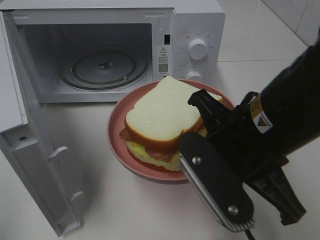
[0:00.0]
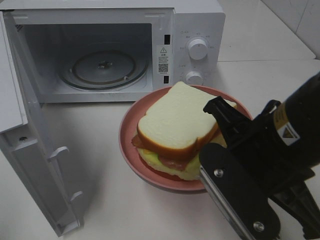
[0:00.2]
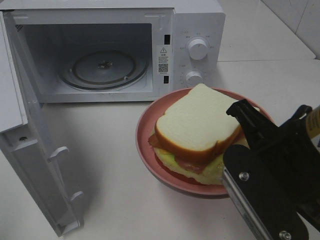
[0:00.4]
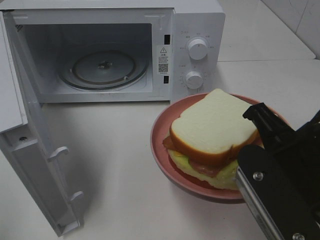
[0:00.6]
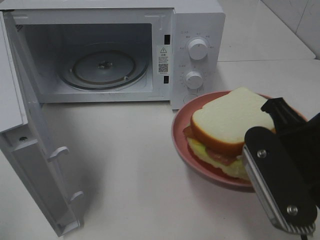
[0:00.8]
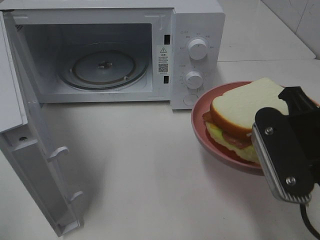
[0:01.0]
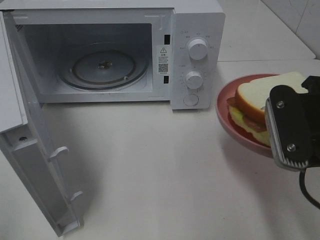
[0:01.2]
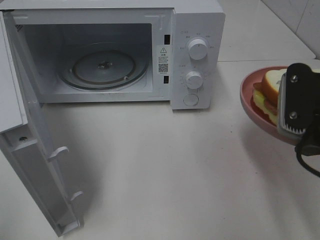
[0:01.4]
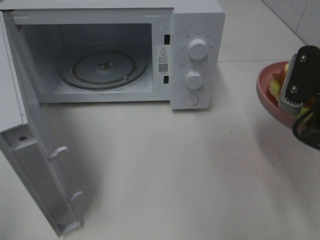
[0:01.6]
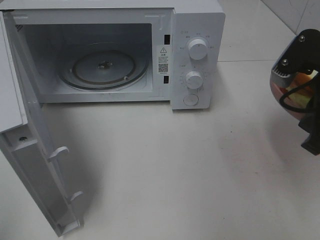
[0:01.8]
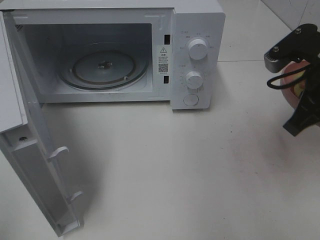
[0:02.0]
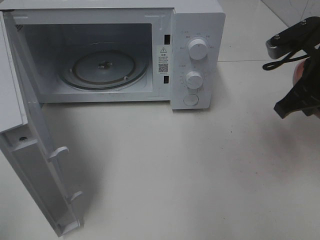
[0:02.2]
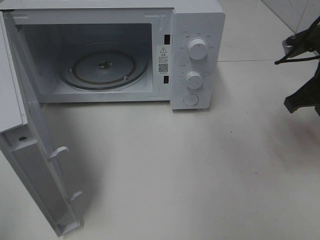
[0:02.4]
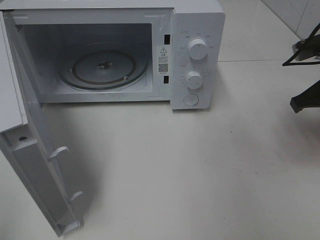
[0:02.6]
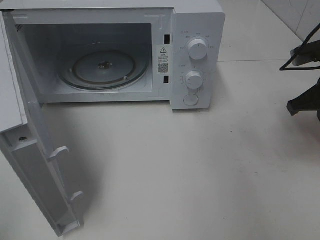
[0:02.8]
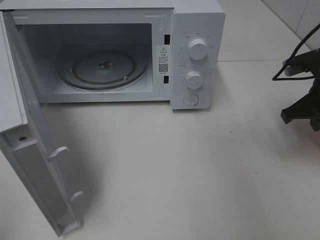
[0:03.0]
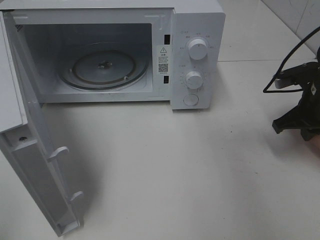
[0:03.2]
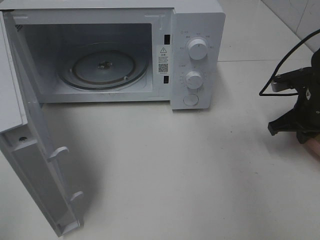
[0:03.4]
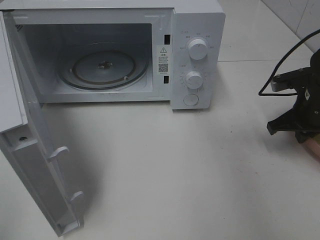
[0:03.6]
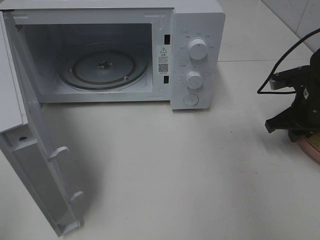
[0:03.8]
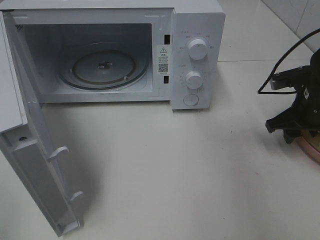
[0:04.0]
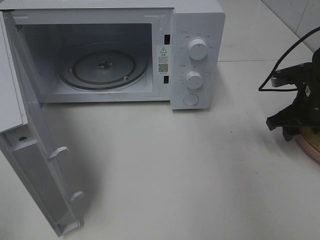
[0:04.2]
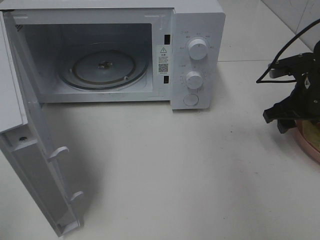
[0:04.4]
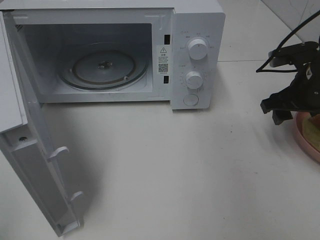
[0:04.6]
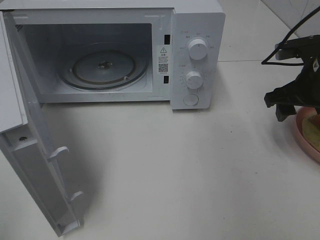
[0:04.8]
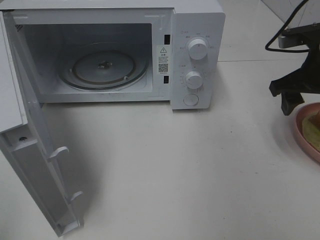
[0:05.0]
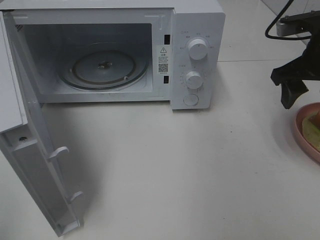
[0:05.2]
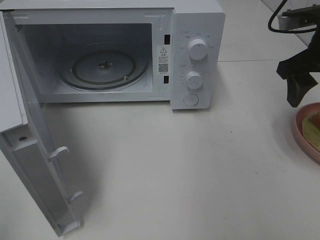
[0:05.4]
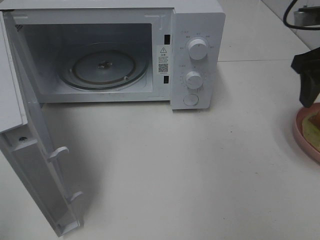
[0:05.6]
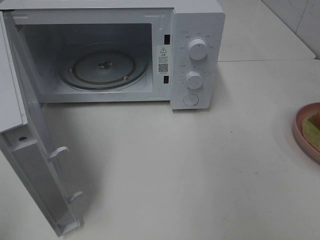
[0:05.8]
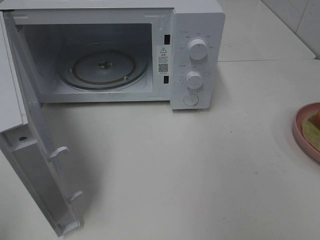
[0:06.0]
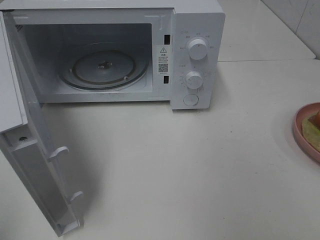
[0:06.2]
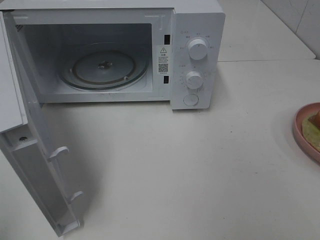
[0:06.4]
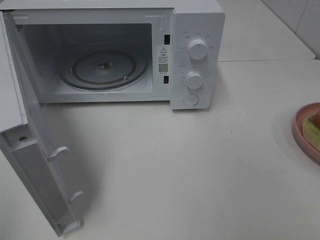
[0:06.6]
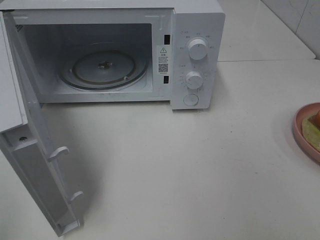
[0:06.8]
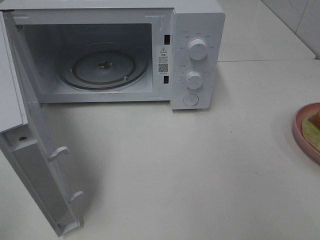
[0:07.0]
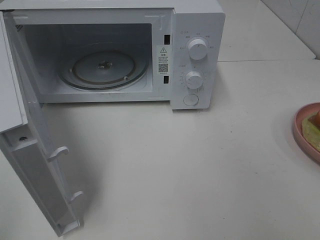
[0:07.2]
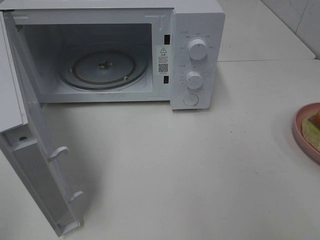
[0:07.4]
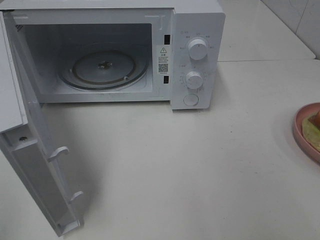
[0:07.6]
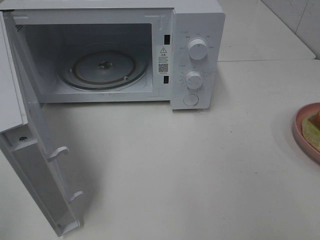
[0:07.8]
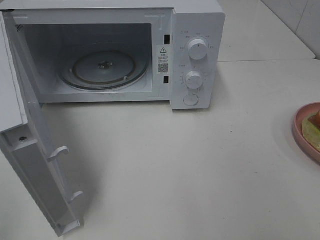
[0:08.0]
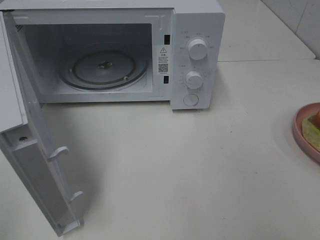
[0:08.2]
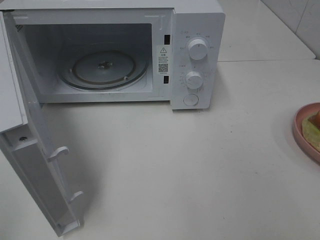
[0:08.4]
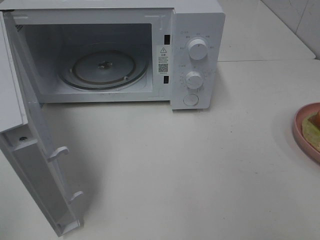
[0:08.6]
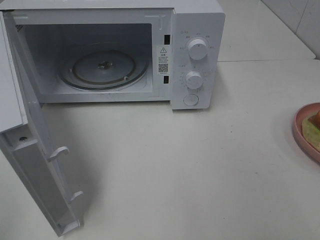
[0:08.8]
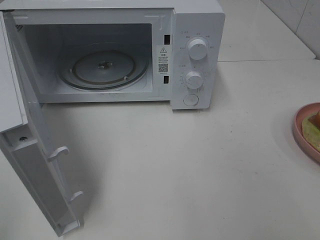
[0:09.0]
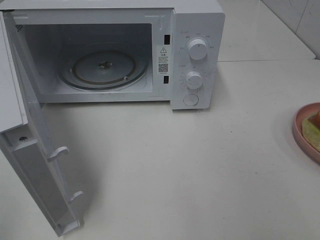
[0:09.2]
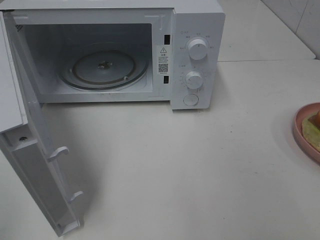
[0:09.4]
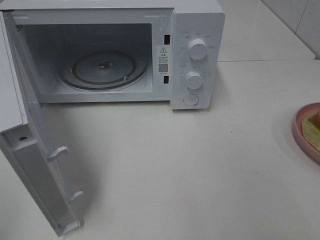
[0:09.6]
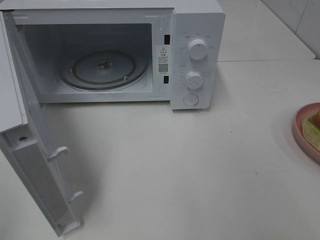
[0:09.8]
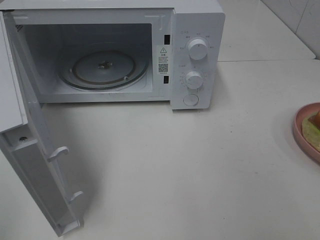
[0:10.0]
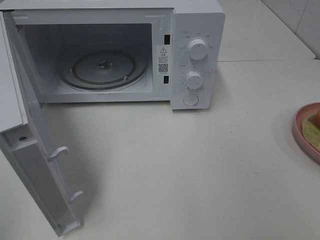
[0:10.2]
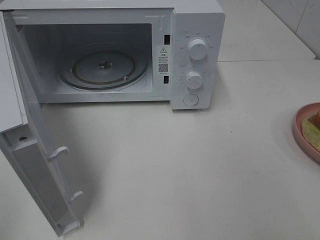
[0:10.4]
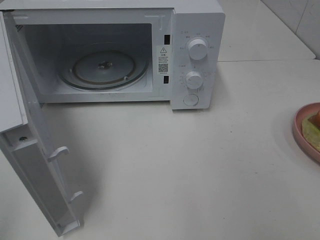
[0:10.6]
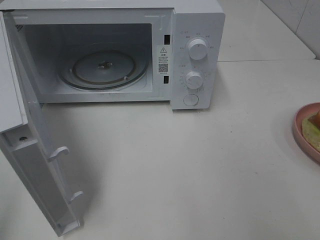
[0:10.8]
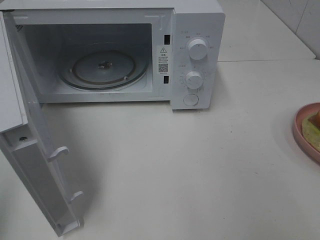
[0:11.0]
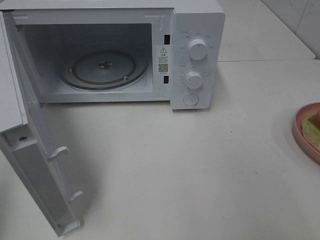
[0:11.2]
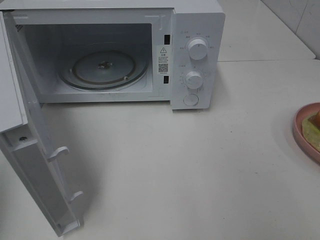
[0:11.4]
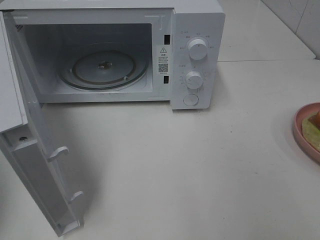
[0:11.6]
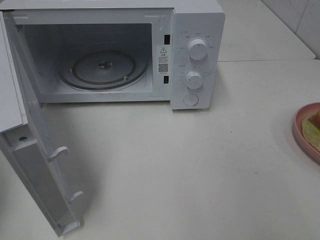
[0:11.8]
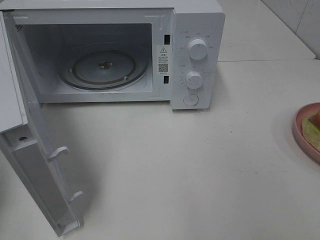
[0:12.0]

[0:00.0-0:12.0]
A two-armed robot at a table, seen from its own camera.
Task of the whole recording: Heat Sandwich.
Step, 0:00.0 to 0:04.4: Right hand: place the plate on the table.
0:00.0 to 0:01.6: The right gripper goes approximately 10 cm to the right.
0:01.6 to 0:03.0: The right gripper goes approximately 15 cm forward, downward and to the right.
0:03.0 to 0:04.4: The right gripper opens its fingers.
0:04.4 to 0:06.0: The right gripper goes roughly 20 cm upward and backward.
0:09.0 to 0:10.4: The two grippers keep their place.

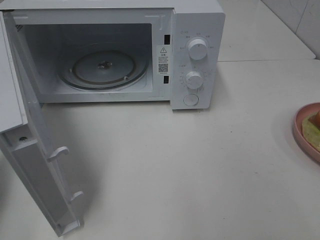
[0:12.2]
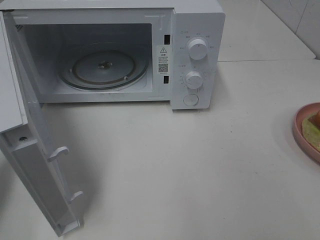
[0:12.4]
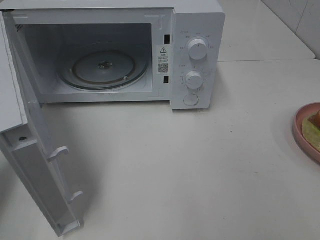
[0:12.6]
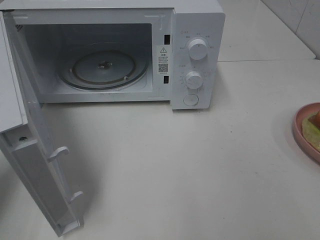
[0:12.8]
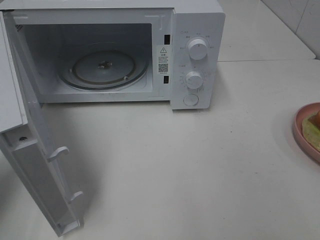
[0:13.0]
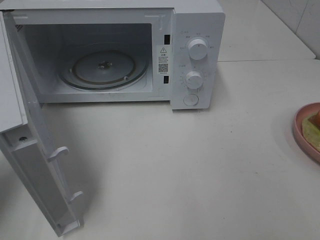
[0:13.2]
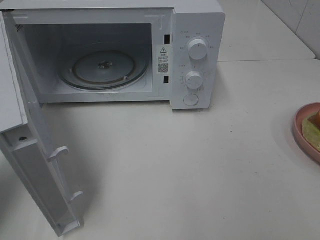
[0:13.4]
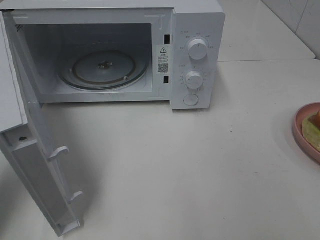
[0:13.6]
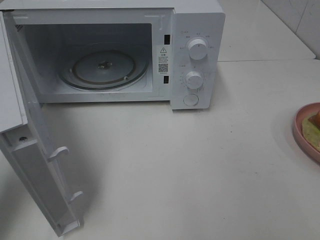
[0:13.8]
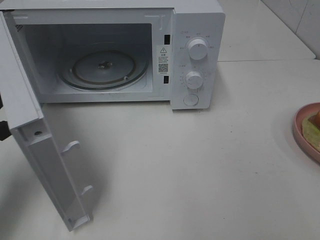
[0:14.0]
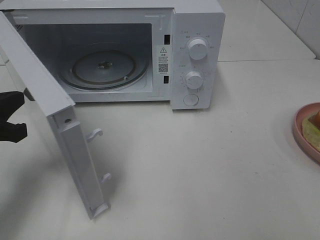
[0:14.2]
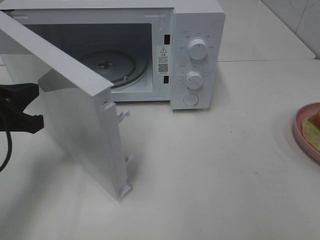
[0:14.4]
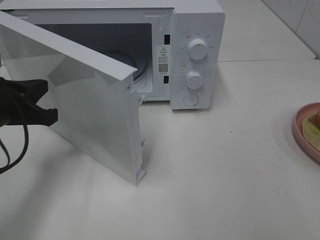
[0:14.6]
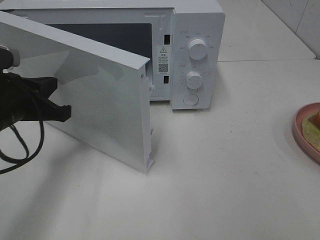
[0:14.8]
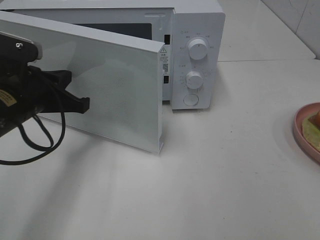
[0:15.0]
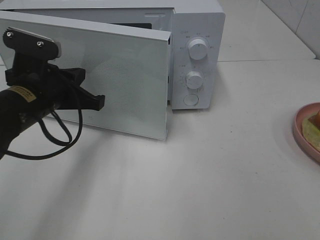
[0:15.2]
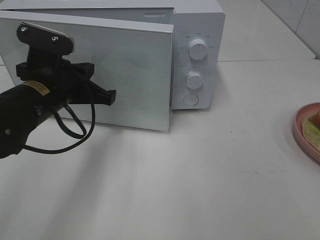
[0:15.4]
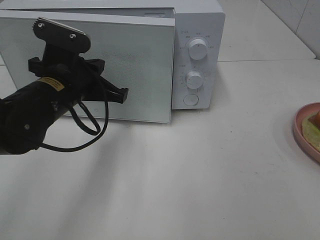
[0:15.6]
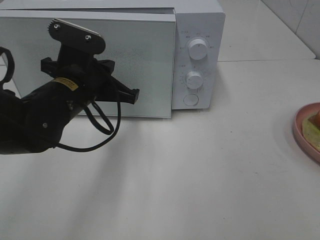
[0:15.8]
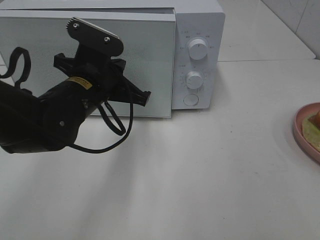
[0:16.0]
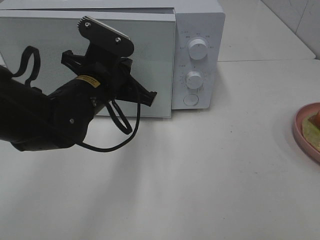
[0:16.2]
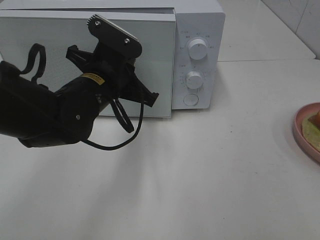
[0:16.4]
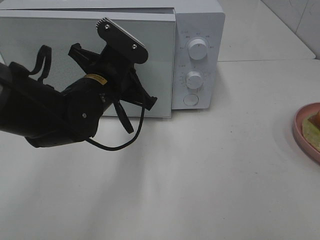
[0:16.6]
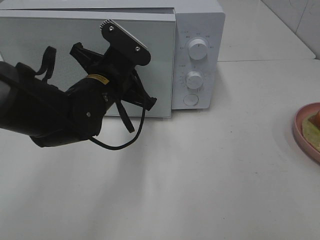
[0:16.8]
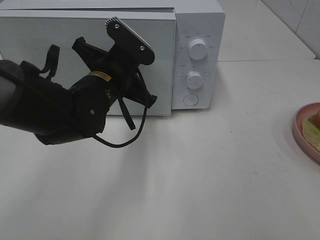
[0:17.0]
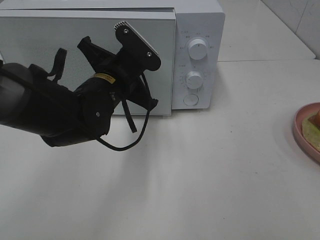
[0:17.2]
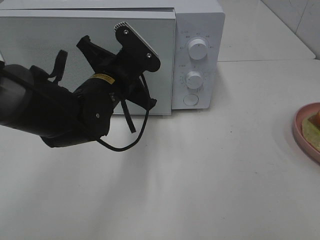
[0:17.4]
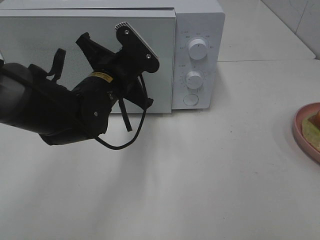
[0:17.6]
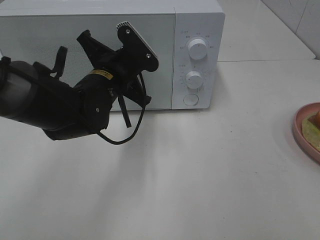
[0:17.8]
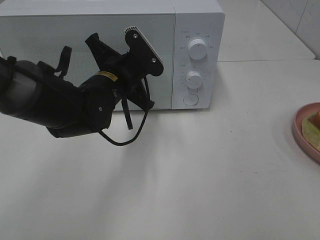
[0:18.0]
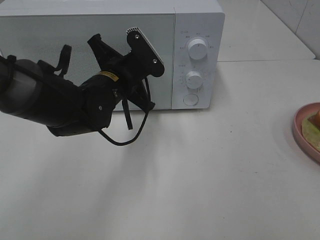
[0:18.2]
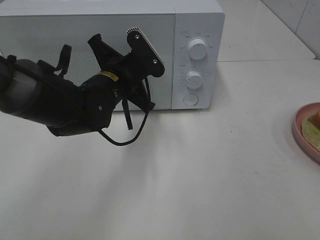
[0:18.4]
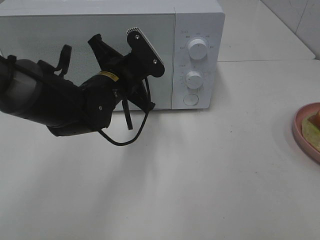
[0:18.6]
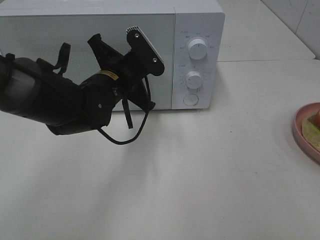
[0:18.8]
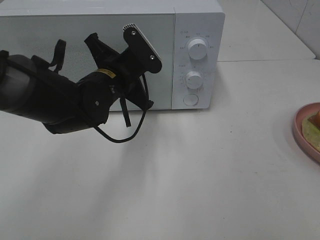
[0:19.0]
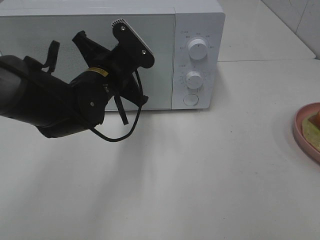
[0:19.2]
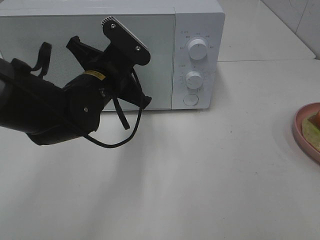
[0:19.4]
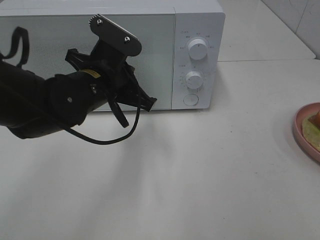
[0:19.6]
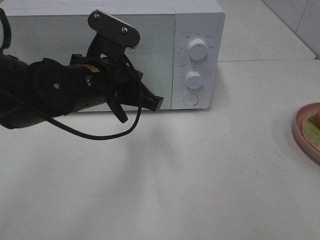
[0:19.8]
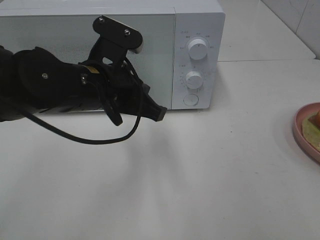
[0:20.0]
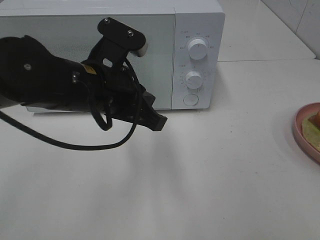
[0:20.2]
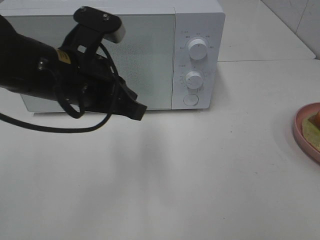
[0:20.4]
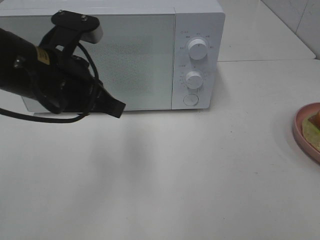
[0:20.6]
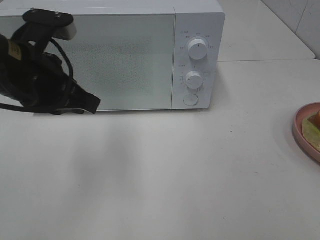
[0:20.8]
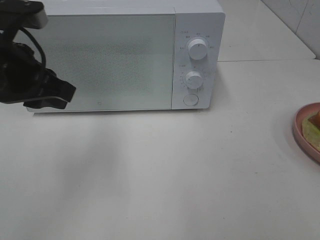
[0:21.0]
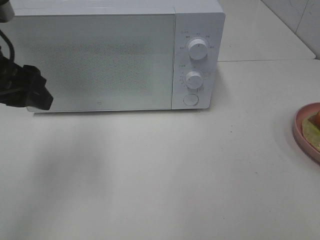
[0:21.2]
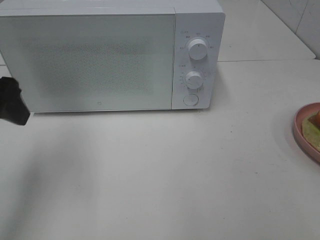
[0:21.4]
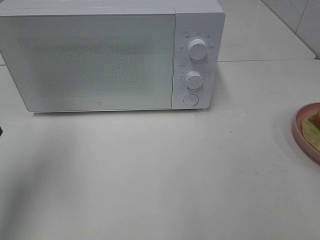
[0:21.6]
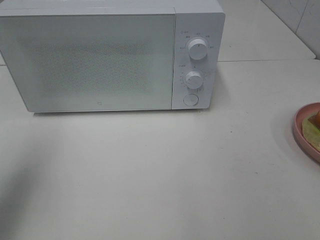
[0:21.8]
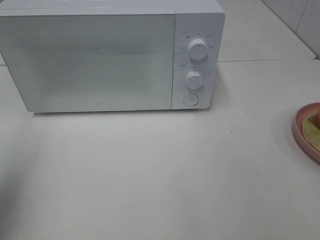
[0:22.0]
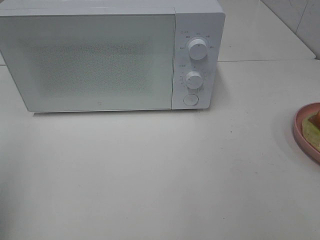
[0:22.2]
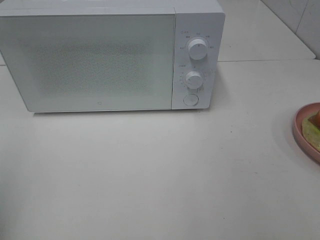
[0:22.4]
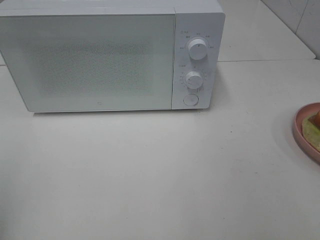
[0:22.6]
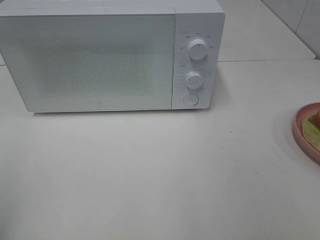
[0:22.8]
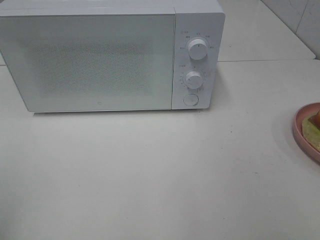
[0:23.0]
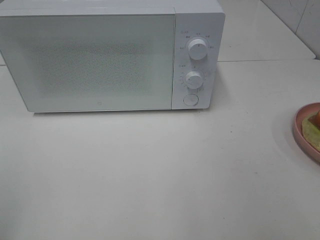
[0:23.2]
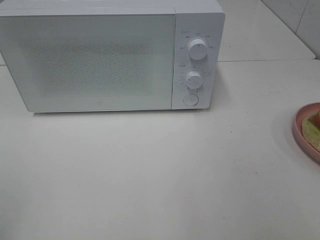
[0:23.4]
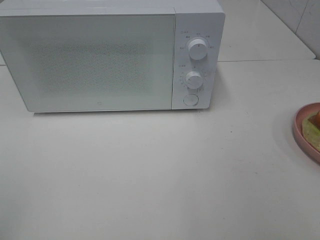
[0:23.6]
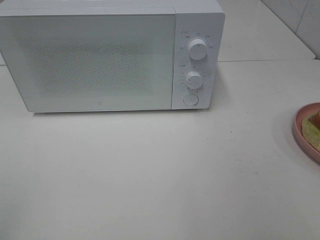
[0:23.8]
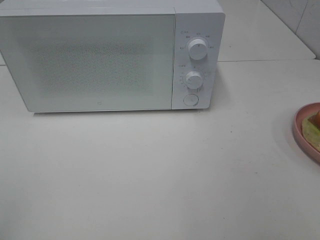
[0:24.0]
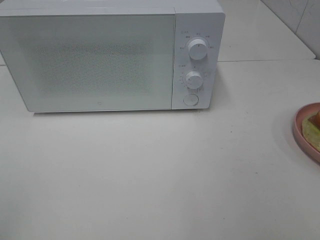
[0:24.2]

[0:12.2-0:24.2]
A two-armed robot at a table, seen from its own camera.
Task of the whole recording: Heat Sandwich.
Step, 0:12.2 to 0:19.6: Left hand: close the microwave door.
0:12.2 to 0:13.8: The left gripper moves some 5 cm.
0:13.8 to 0:15.2: The left gripper is displaced to the right and forward by about 15 cm.
0:15.2 to 0:16.6: The left gripper travels to the right by some 10 cm.
0:16.6 to 0:18.2: The grippers move only a little.
0:18.2 to 0:19.8: The left gripper travels backward by about 5 cm.
0:19.8 to 0:21.2: The left gripper goes some 15 cm to the left and upward, and opens its fingers.
0:21.2 to 0:22.6: The left gripper heads backward and to the left, covering about 20 cm.
